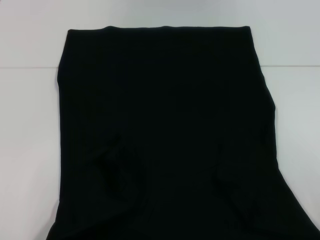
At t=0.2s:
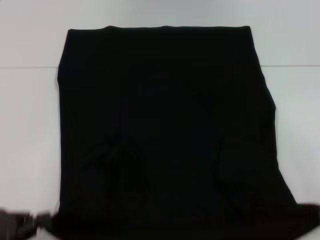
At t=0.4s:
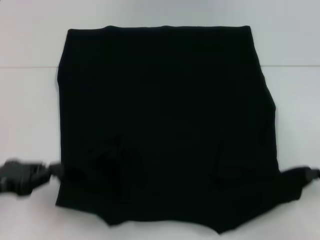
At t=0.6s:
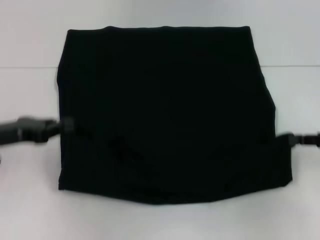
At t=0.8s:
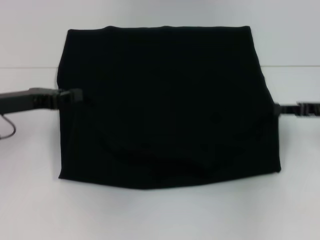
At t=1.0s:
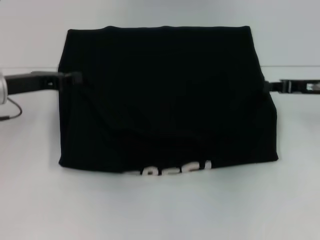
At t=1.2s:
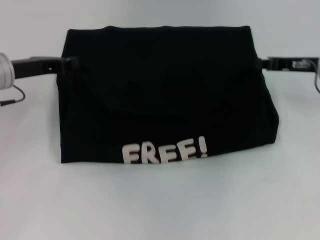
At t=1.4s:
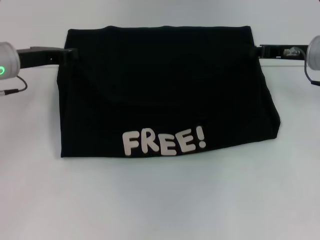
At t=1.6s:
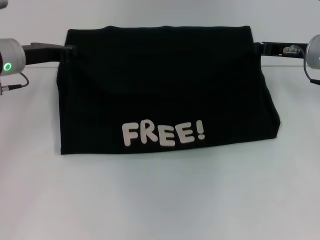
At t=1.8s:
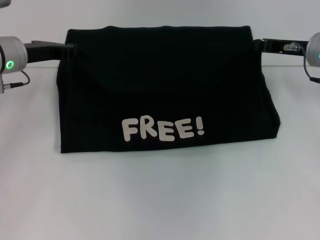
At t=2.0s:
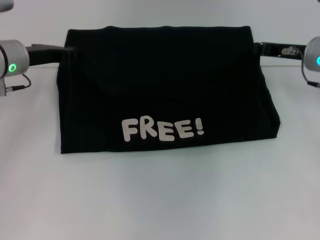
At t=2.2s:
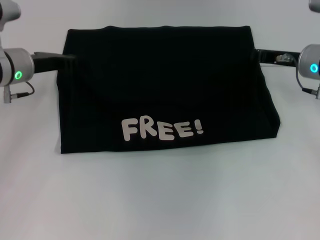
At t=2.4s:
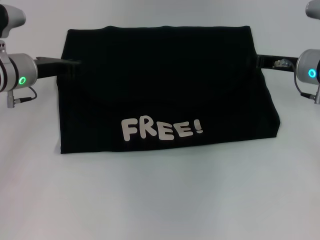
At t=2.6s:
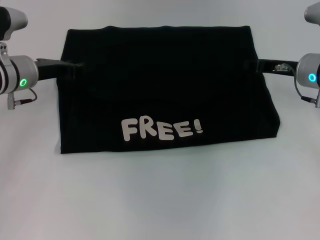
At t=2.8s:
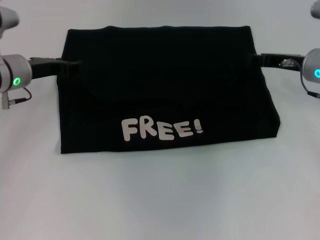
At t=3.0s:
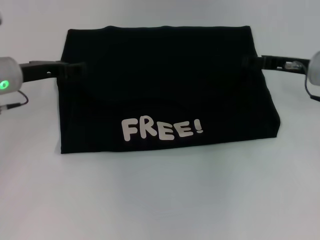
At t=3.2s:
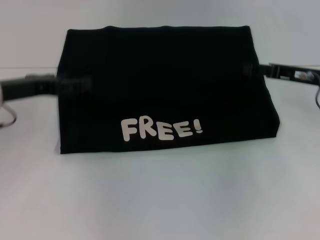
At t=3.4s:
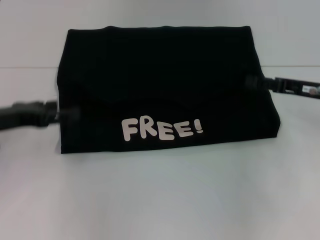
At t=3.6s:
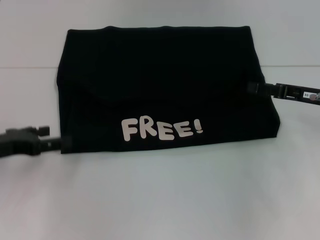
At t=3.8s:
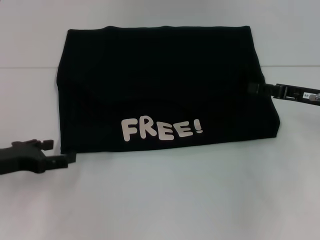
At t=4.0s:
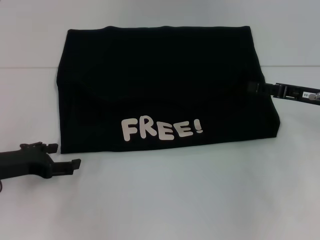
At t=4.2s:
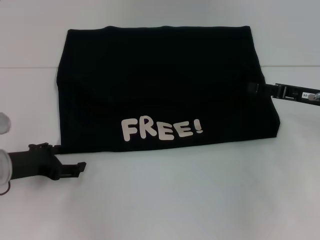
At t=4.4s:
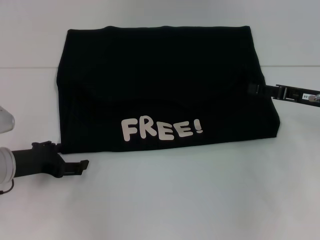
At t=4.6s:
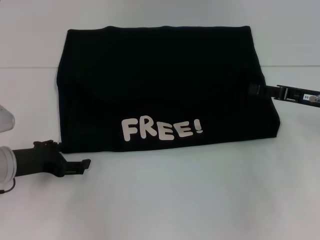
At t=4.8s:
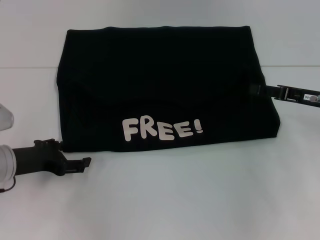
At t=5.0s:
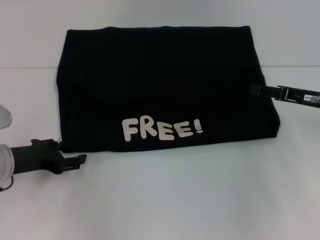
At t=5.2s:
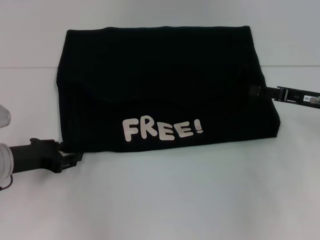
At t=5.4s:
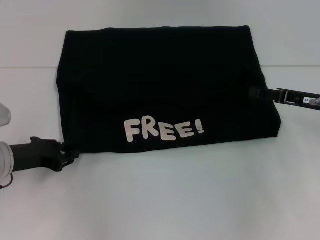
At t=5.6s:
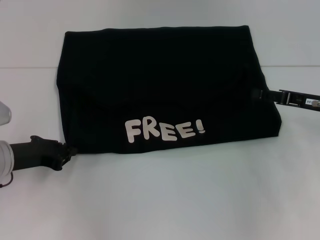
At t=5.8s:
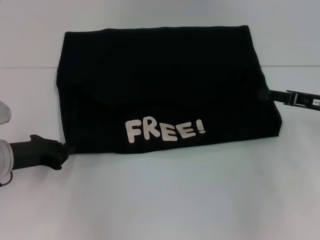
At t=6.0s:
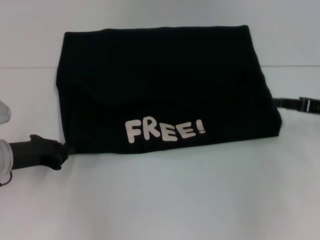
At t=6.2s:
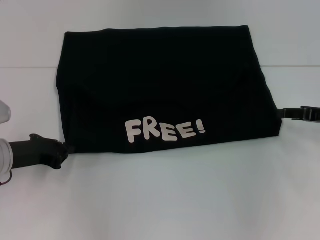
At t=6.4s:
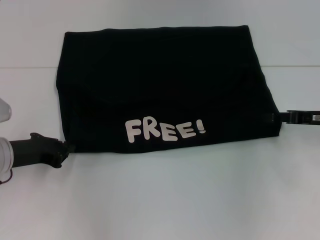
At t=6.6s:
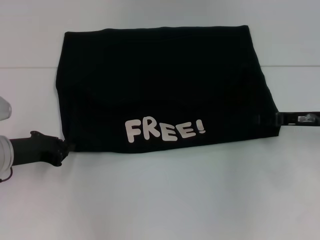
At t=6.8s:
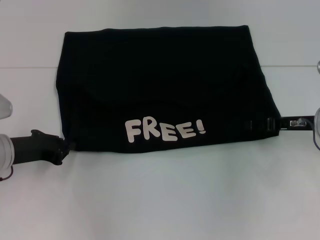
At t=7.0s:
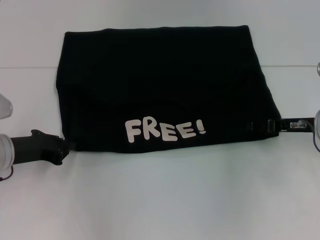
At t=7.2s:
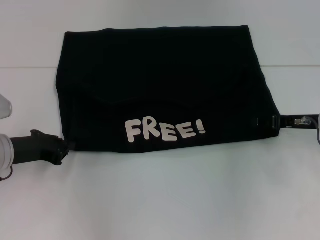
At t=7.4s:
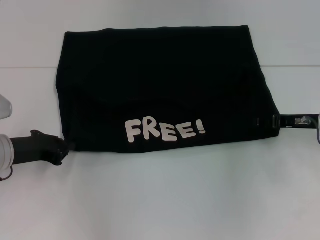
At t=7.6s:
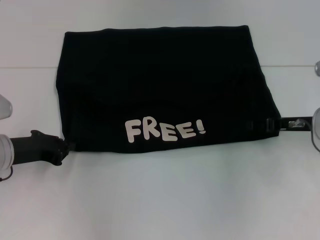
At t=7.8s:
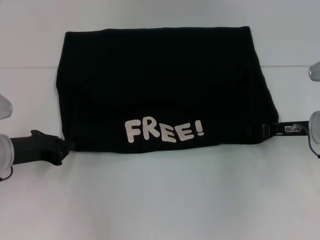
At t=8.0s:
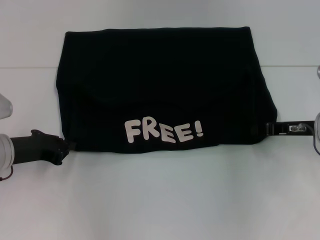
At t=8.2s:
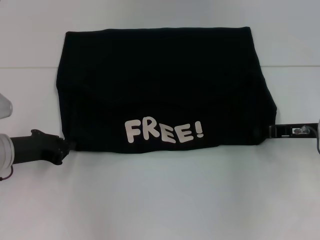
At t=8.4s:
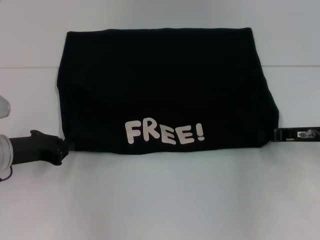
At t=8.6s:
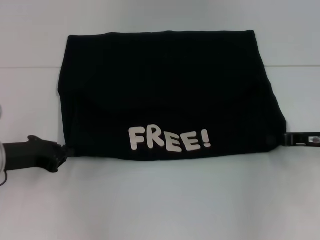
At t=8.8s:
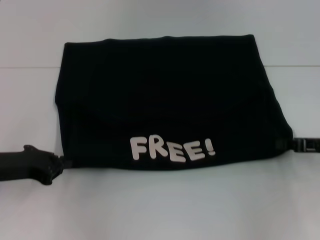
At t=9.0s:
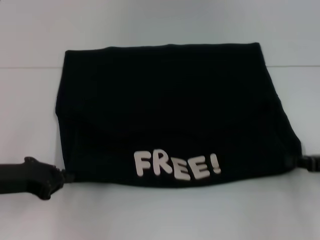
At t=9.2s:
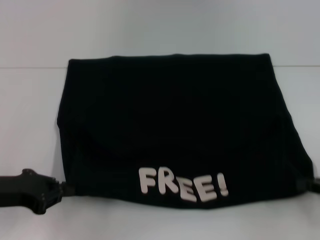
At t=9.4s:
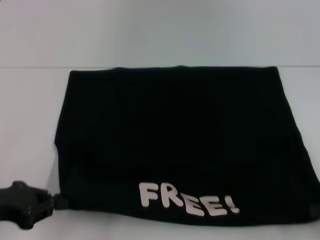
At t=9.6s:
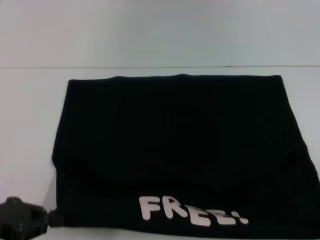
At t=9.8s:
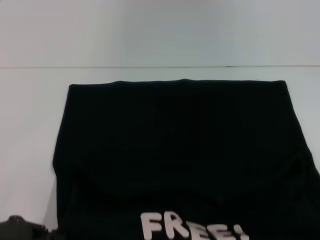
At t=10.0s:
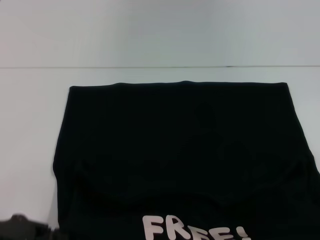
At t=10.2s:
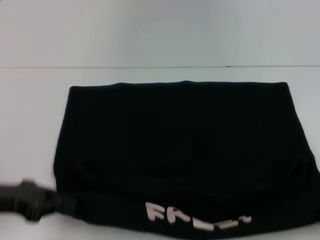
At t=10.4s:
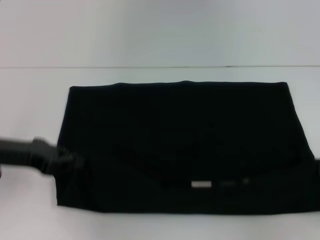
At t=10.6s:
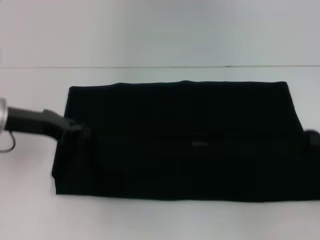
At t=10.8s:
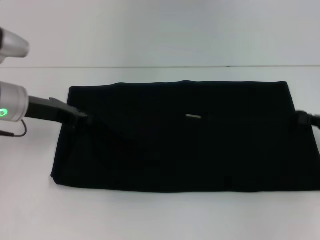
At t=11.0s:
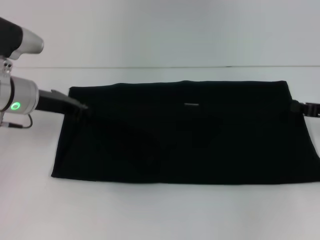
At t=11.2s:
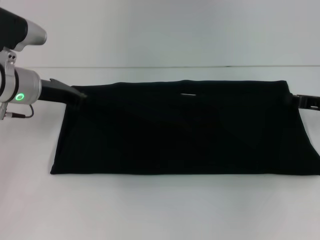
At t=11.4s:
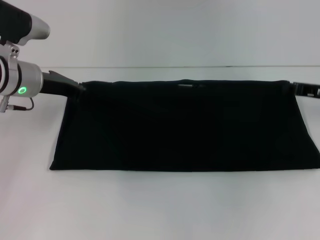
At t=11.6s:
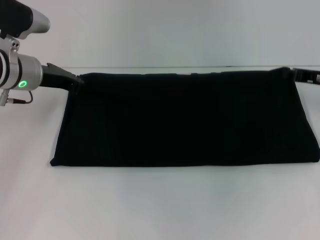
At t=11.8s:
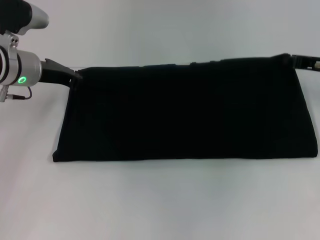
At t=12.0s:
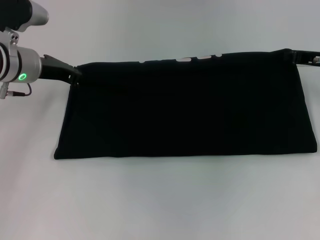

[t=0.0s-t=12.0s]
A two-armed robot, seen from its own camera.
Step, t=0.0s to t=2.8s: Fold the clothes with your left hand.
Step, t=0.0s to t=2.8s: Fold the clothes with your right hand.
Step, t=3.0s to t=9.6s: Pull the clothes with your left hand.
Step, t=3.0s to t=9.6s: Pull the clothes with your right hand.
t=0.0s to t=1.6s: The right gripper moves forward and to the left, some 25 cm. Meanwhile the left gripper shifts approximately 30 cm forward.
t=1.6s to t=3.0s: The left gripper opens its fingers. The right gripper opens up.
t=3.0s to t=4.4s: The right gripper is displaced backward by about 5 cm. Meanwhile the left gripper shifts approximately 15 cm backward and downward.
t=4.4s to t=6.0s: The left gripper closes.
t=6.0s to t=7.6s: The right gripper heads to the left, covering some 5 cm.
t=7.6s to t=9.0s: The right gripper goes about 10 cm backward and to the right, and closes; the left gripper heads backward, covering about 5 cm.
t=9.0s to t=10.4s: The left gripper travels backward and back again, about 5 cm each way. Meanwhile the right gripper heads backward, covering some 5 cm.
t=10.4s to t=12.0s: The right gripper is displaced forward and to the left by about 20 cm, while the left gripper moves forward, approximately 15 cm.

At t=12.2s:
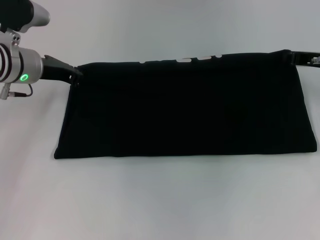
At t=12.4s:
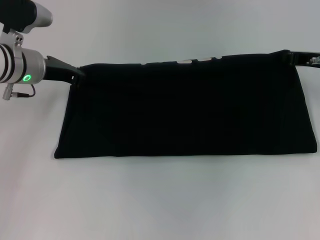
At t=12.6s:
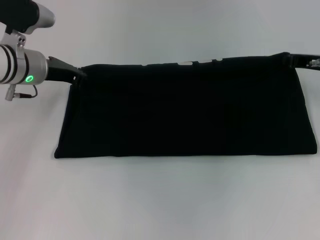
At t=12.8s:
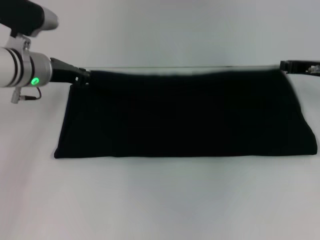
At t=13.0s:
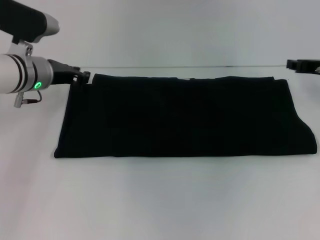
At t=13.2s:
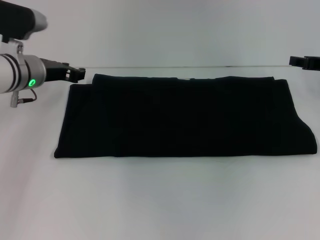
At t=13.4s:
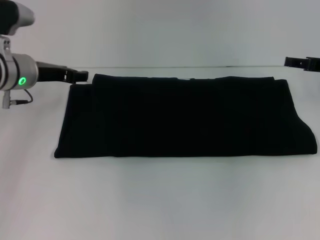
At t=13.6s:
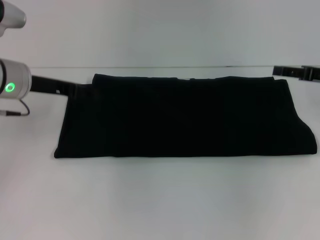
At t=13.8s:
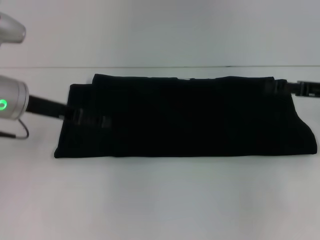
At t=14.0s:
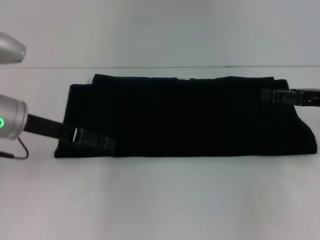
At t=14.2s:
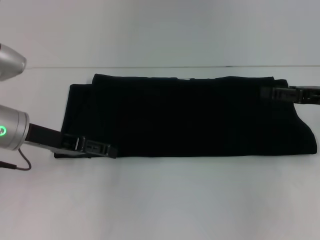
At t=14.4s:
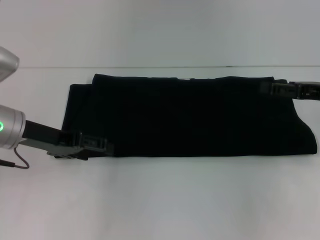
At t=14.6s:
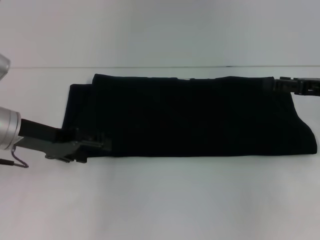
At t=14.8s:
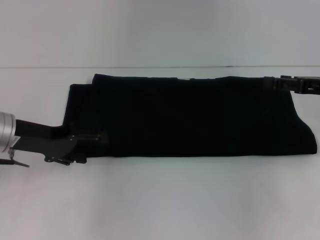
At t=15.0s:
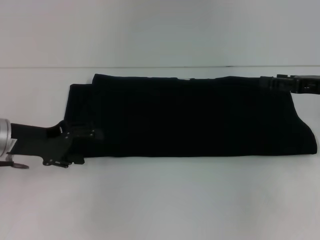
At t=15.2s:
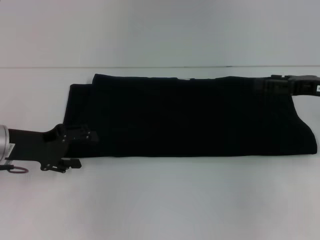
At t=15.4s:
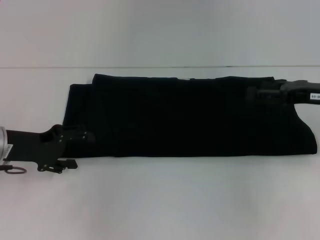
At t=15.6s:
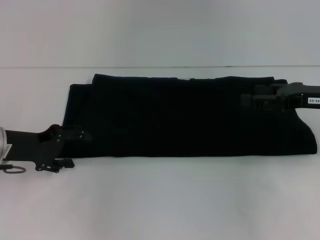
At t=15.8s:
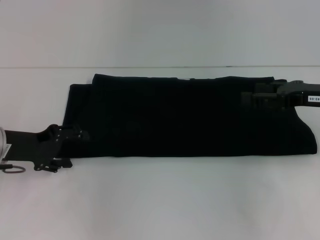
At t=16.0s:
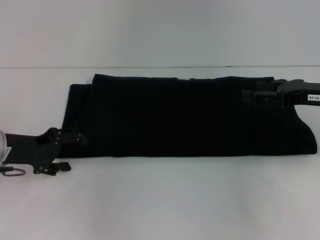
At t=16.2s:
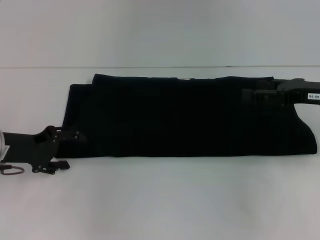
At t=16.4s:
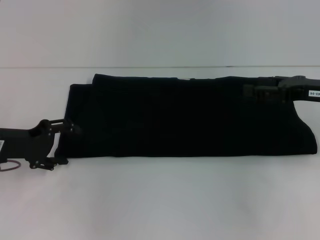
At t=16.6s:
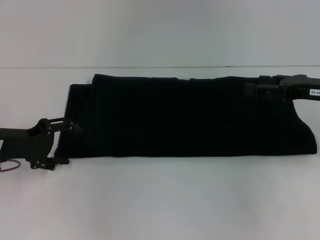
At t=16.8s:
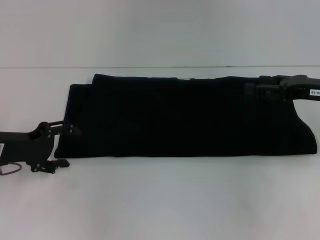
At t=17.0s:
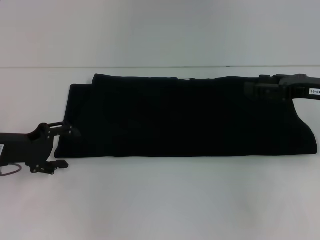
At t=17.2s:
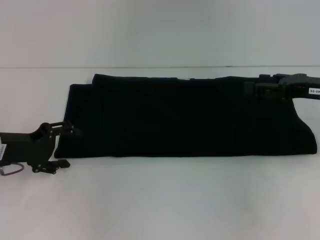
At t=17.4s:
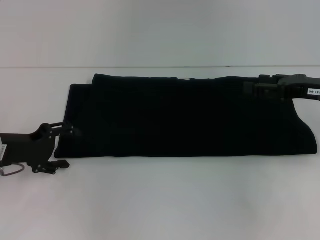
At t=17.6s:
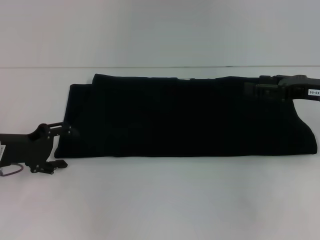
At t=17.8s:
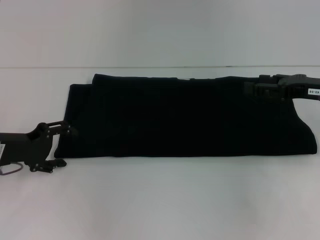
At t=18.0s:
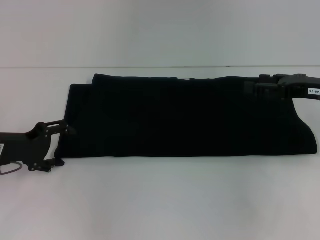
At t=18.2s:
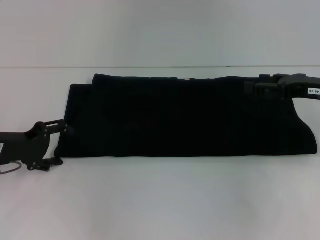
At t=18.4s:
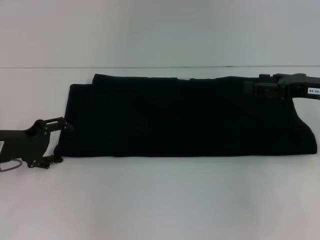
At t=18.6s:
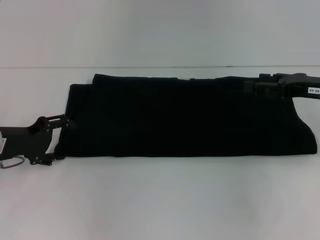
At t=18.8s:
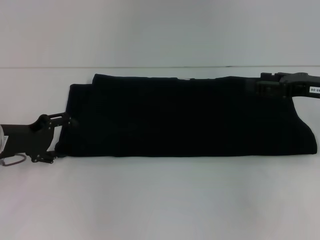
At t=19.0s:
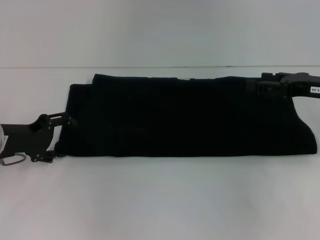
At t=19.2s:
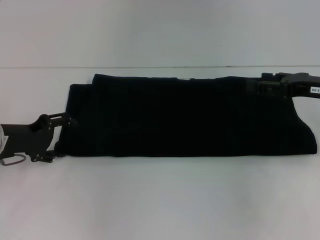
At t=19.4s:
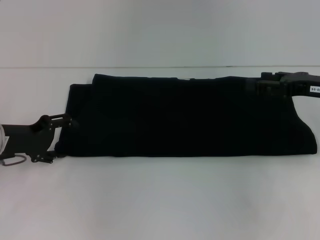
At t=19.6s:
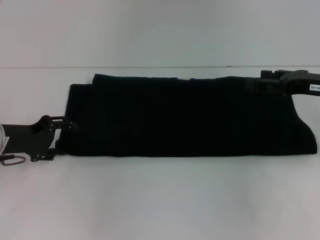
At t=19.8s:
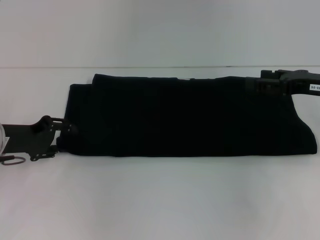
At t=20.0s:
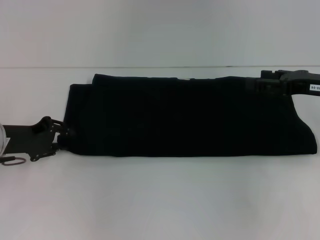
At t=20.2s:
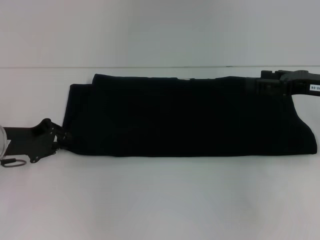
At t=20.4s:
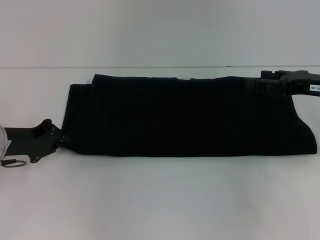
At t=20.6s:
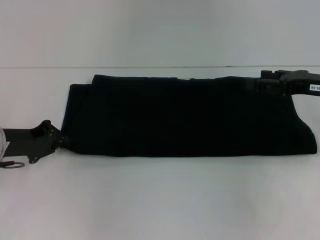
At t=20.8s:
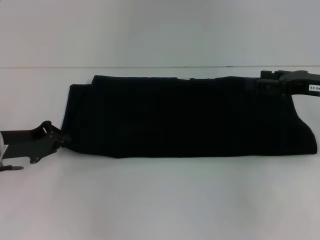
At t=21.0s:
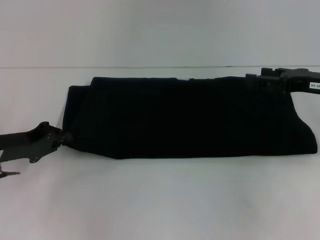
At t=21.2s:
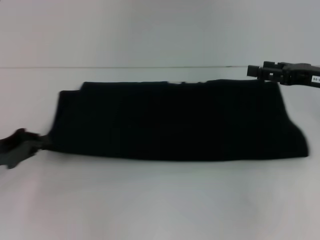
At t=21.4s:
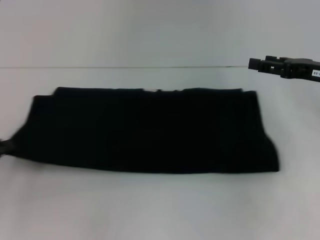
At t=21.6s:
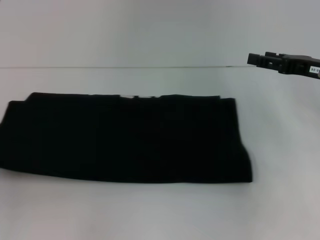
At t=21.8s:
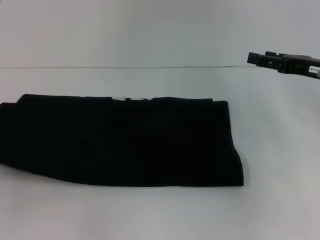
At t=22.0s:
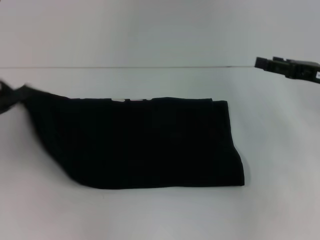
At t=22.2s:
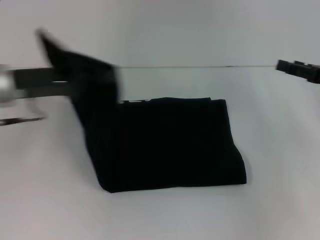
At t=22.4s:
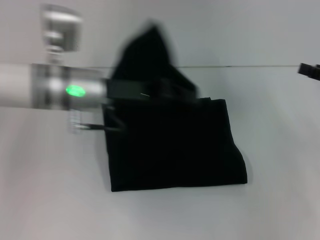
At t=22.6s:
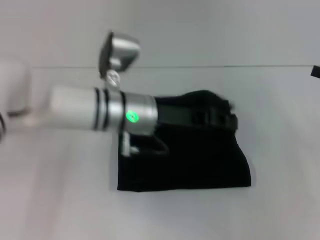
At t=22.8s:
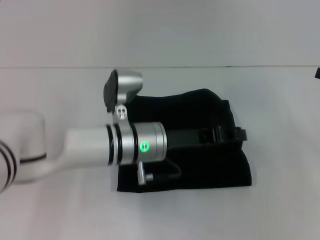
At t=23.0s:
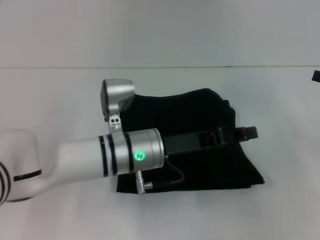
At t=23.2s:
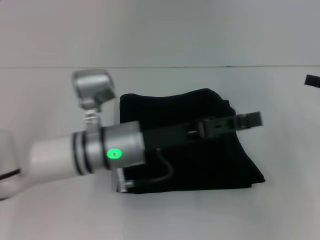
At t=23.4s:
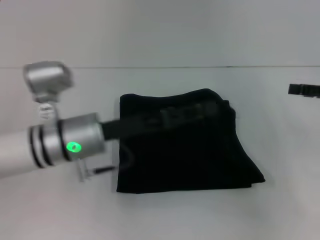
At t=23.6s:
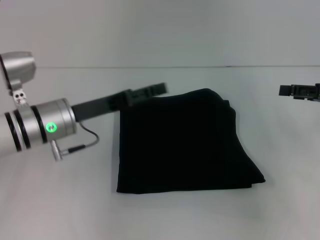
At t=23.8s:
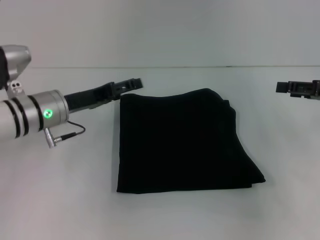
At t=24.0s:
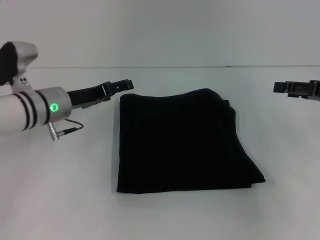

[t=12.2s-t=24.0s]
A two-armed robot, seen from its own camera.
Step, t=12.2s to t=22.8s: Fold the clothes with your left hand.
t=12.2s to t=13.6s: The right gripper shifts by approximately 5 cm, and opens up, while the left gripper opens.
t=13.6s to t=15.2s: The left gripper is displaced backward and downward by about 10 cm.
t=15.2s to t=19.6s: The grippers make only small movements.
t=19.6s to t=21.0s: The left gripper closes up.
t=21.0s to t=22.6s: The left gripper travels to the right by approximately 25 cm. Meanwhile the right gripper goes some 10 cm to the right.
t=22.6s to t=24.0s: The left gripper heads to the left, covering approximately 15 cm, and opens.